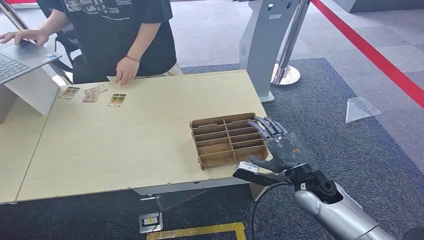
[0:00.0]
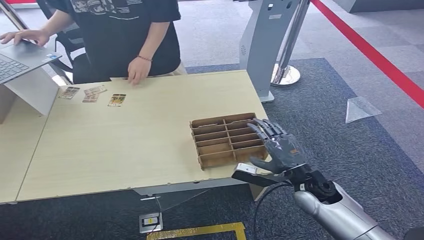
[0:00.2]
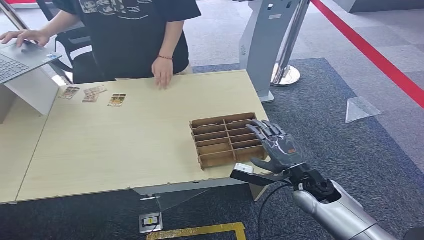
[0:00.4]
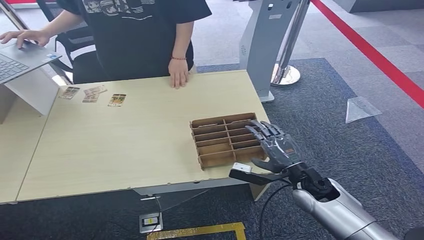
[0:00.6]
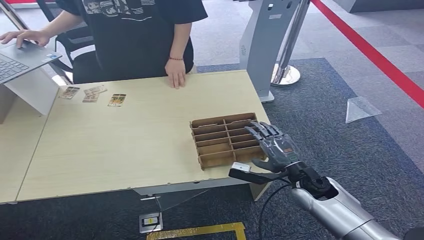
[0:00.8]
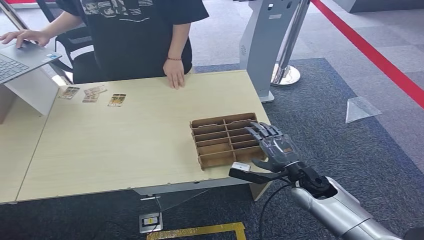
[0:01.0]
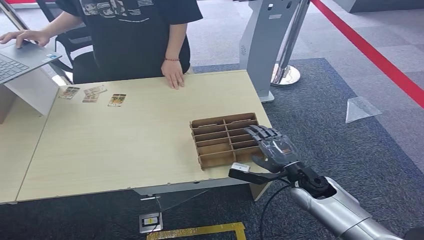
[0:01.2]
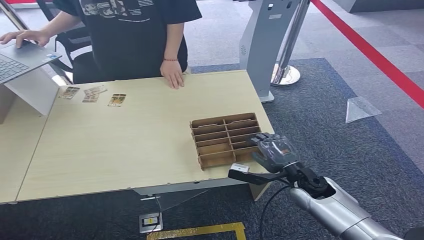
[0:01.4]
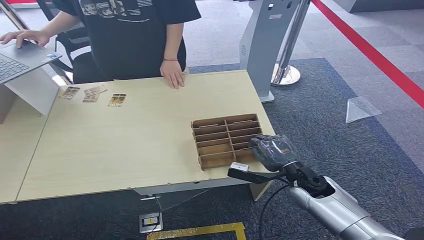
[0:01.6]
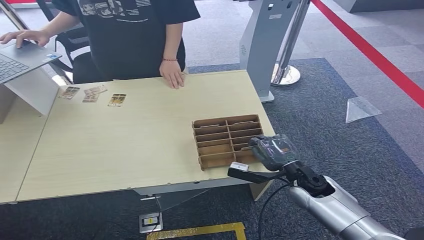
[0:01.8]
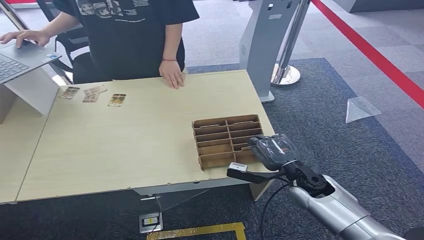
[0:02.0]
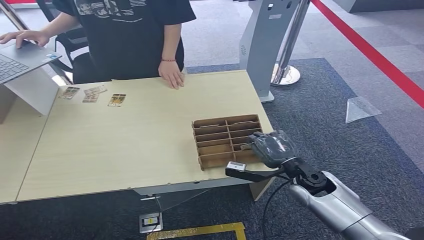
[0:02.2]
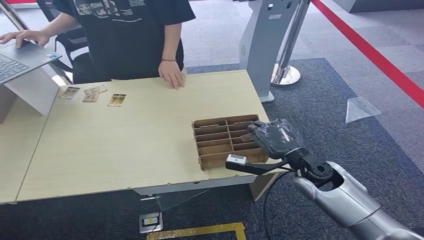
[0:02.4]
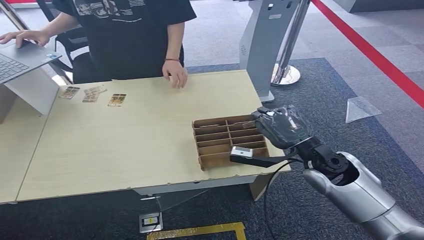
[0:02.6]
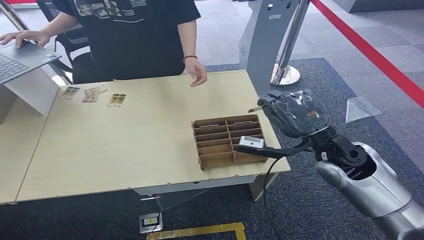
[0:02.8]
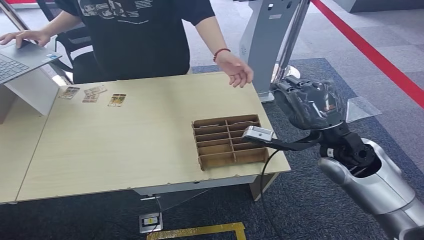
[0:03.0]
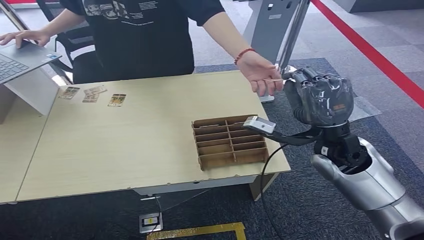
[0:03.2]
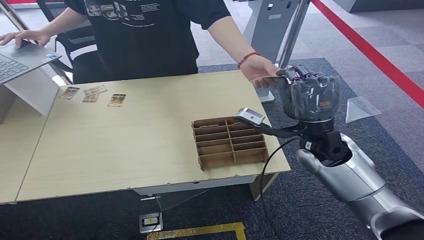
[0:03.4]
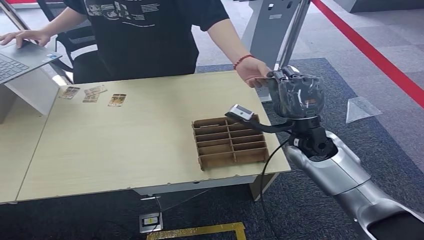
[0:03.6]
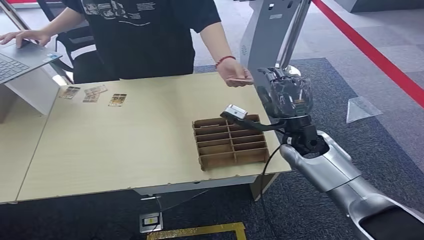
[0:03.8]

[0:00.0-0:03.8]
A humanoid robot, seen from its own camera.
Step, 0:00.0 to 0:02.8: Pick up the key card from the card box.
Step, 0:03.0 to 0:03.6: Hand the key card to the target.
0:01.2 to 0:02.6: The right hand heads upward, covering about 10 cm.
0:02.6 to 0:03.8: The right hand is displaced forward by about 5 cm.

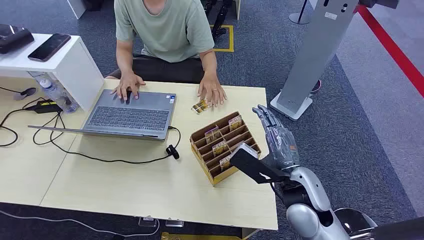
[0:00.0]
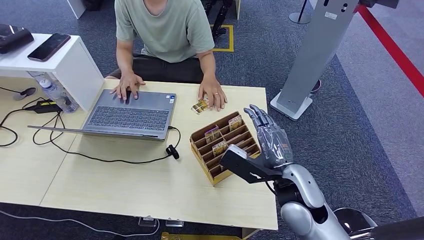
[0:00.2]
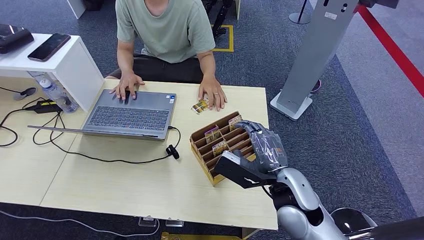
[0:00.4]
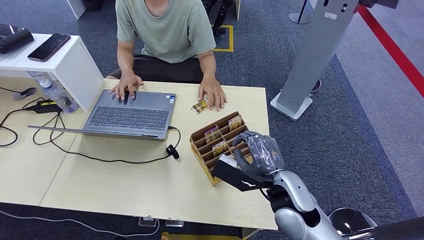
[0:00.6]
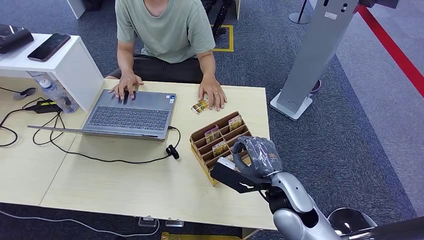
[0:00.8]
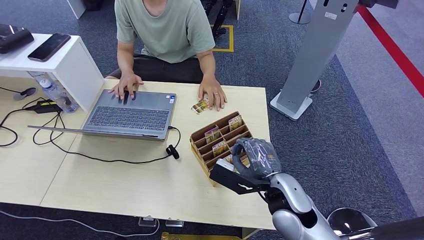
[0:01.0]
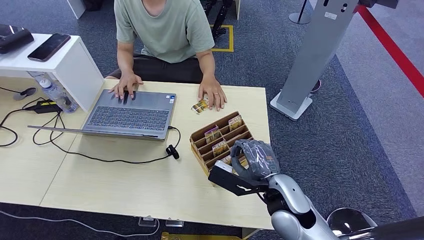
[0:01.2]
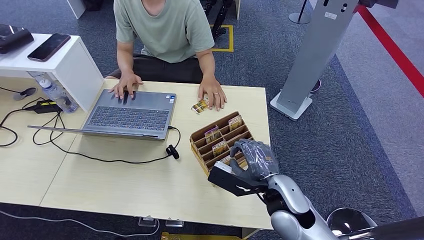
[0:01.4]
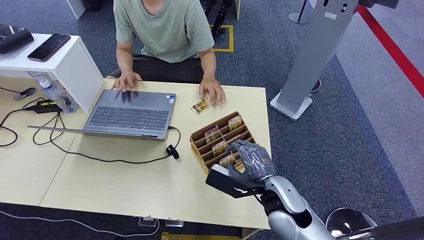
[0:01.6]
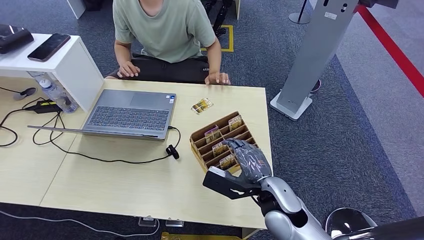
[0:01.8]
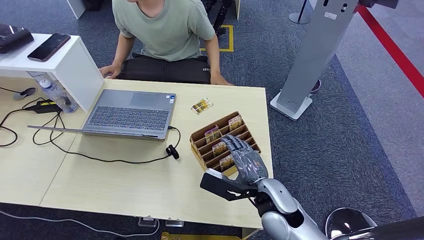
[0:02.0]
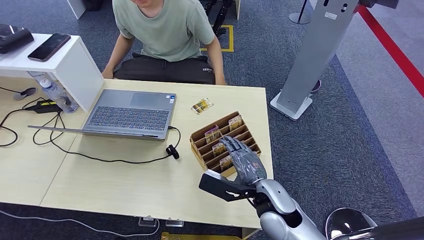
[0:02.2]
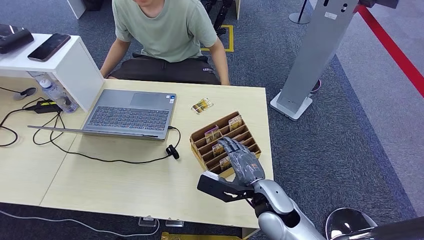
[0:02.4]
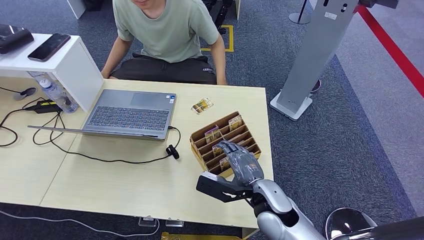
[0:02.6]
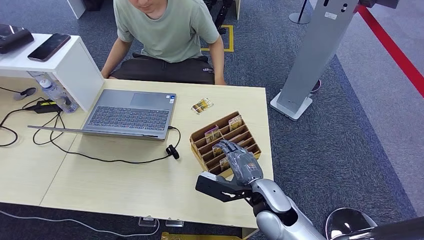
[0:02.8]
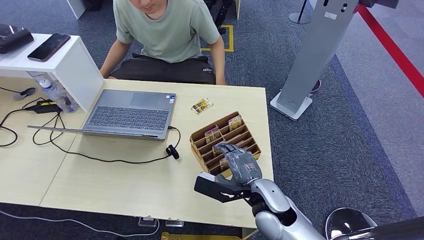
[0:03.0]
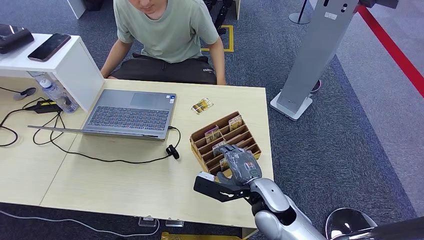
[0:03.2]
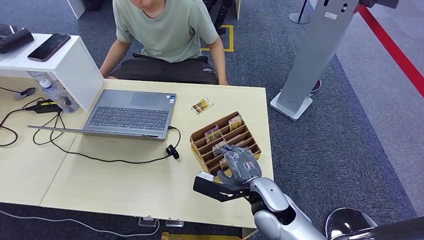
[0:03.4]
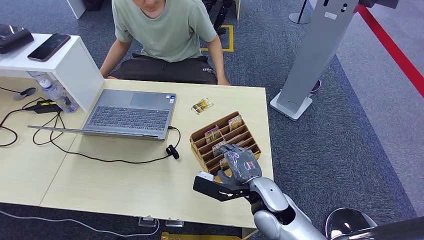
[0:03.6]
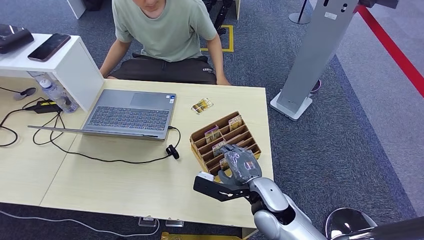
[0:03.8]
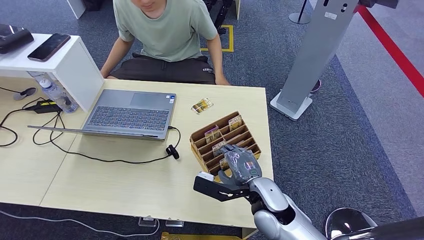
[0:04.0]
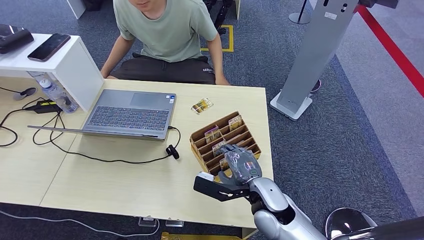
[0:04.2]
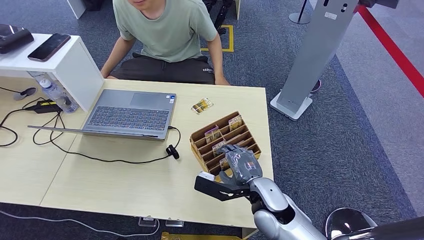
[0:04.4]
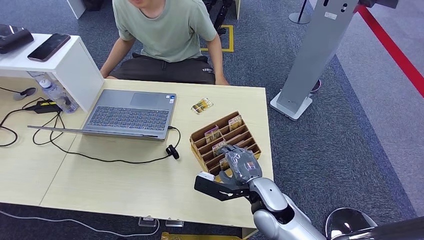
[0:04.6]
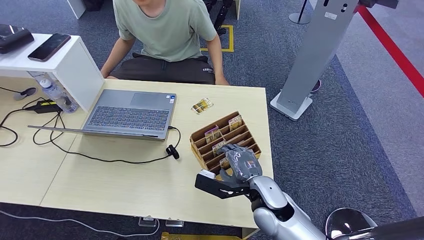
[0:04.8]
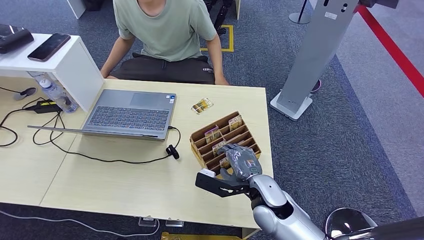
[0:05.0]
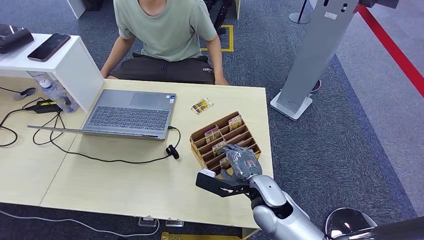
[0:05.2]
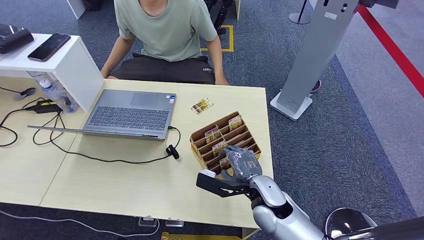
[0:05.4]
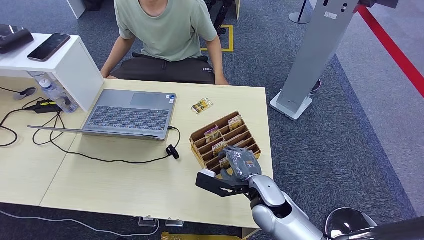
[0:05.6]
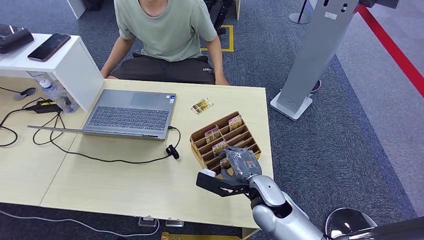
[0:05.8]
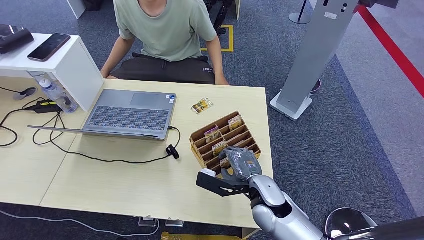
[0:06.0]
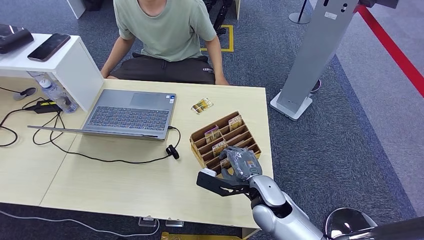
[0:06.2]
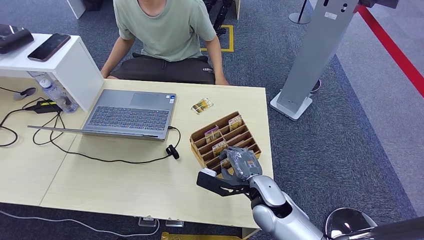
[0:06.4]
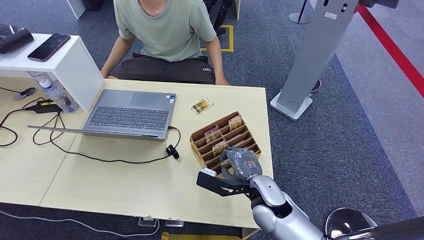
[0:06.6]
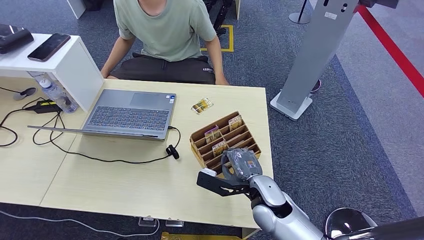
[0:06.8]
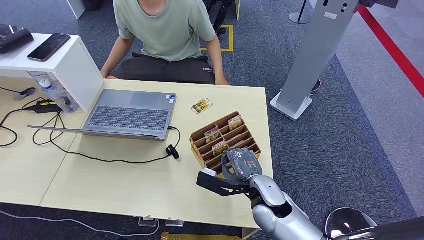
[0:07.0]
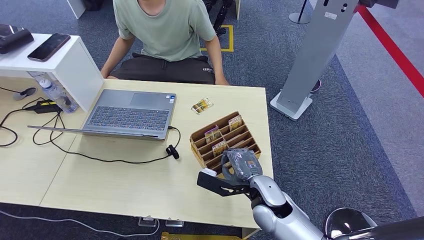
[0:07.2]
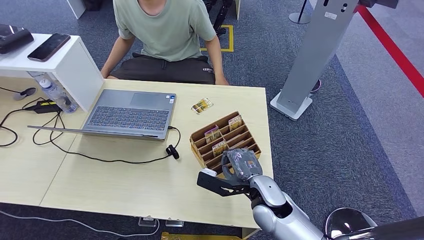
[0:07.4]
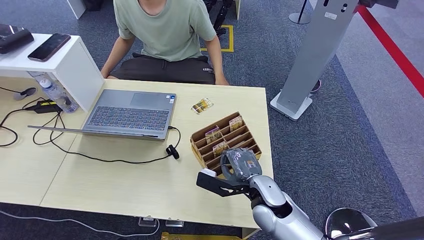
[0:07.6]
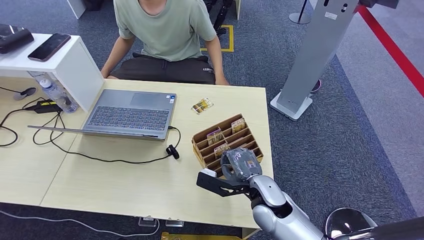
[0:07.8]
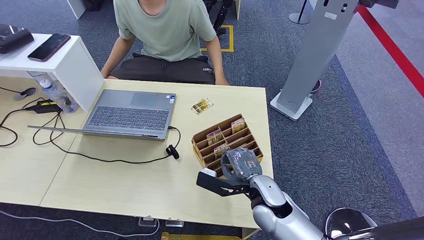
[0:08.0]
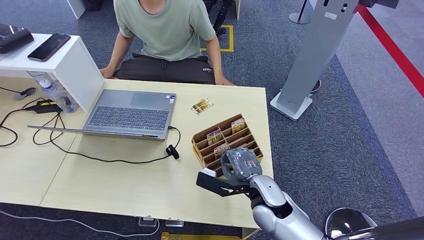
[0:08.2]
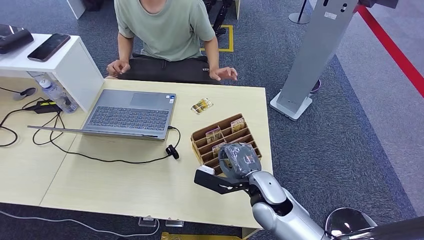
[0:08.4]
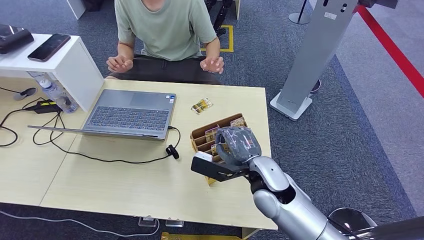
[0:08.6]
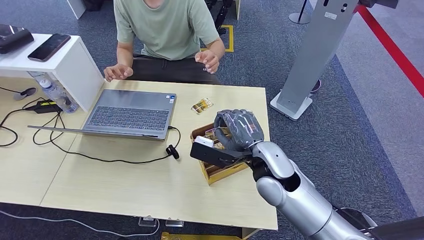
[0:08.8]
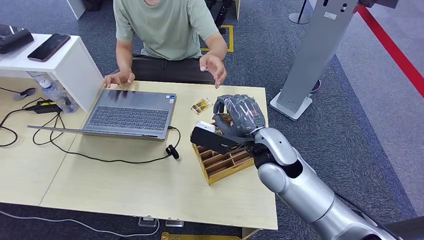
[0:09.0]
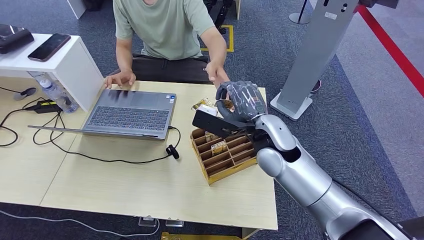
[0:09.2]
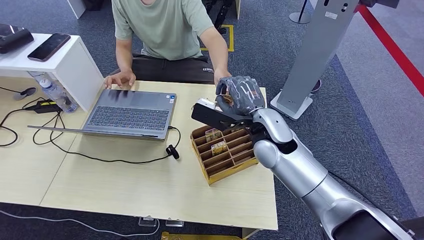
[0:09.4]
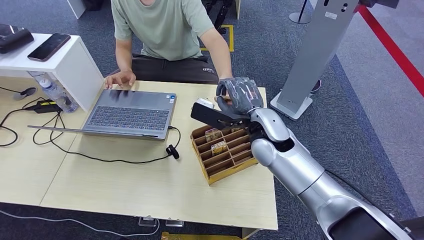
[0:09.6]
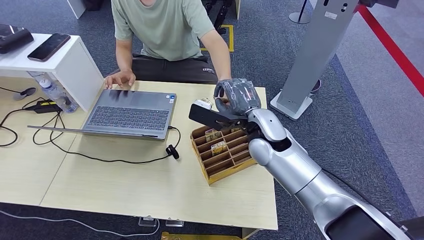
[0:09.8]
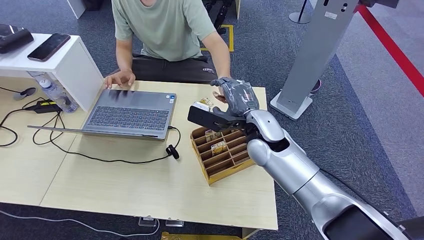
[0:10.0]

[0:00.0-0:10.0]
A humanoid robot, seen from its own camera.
Step, 0:00.0 to 0:08.8: Pick up the key card from the card box.
0:01.4 to 0:02.8: The hands stay close to where they were, moving slightly.
0:02.8 to 0:04.2: Neither hand changes place.
0:04.2 to 0:05.8: There are only small adjustments of the hands.
0:05.8 to 0:07.2: The two hands keep their place.
0:07.2 to 0:08.6: The right hand shifts approximately 5 cm upward.
0:08.6 to 0:10.0: The right hand goes roughly 10 cm forward and upward.

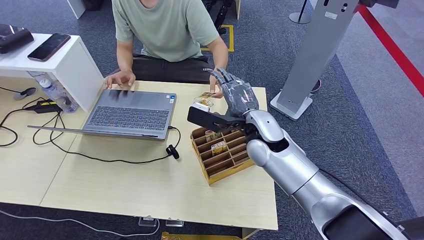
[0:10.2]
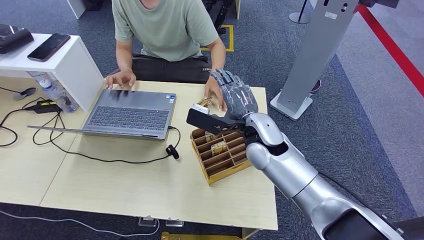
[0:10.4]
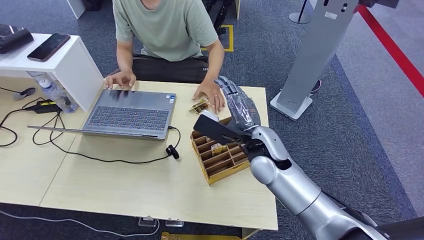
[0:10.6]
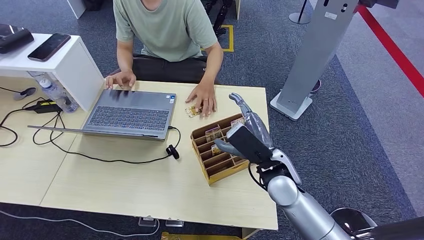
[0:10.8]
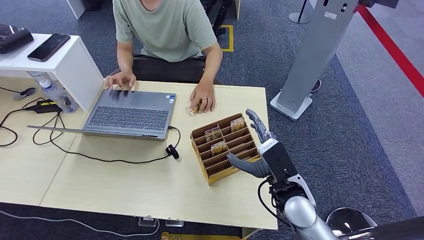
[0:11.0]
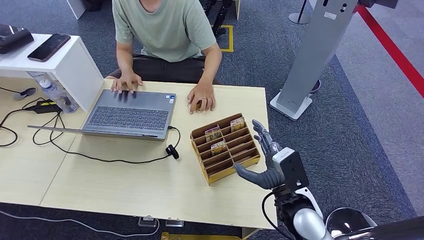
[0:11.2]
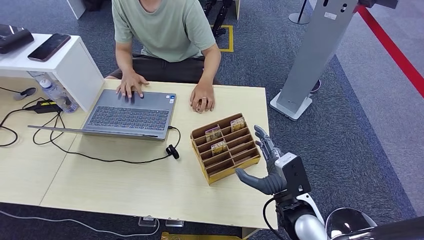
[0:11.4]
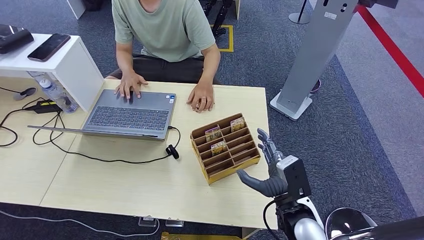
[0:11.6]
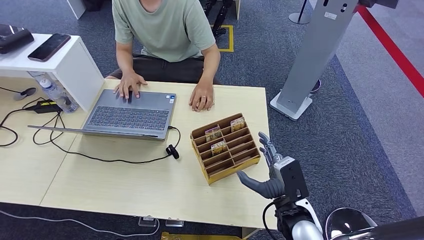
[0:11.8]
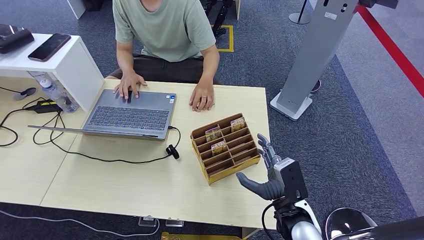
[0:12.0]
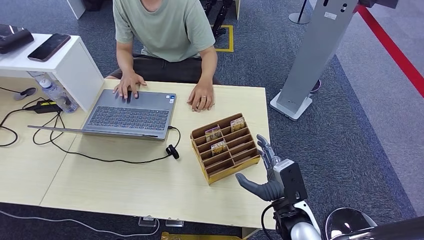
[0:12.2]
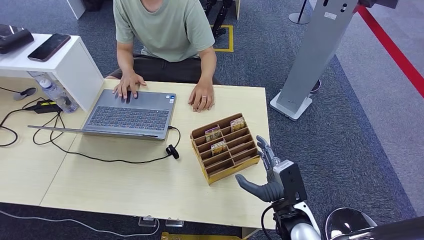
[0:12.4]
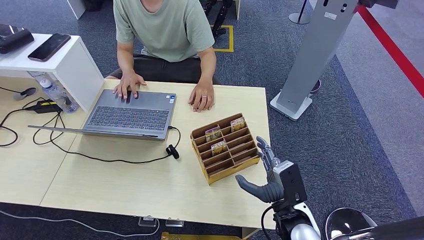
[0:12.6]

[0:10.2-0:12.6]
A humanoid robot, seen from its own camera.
Step, 0:10.2 to 0:12.6: Hand the key card to the target.
0:10.2 to 0:11.4: The right hand shifts approximately 20 cm backward, downward and to the right.
0:11.4 to 0:12.6: There are only small adjustments of the hands.
